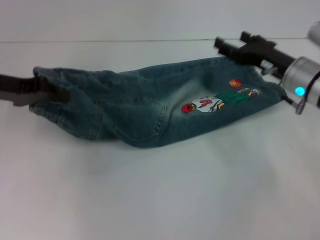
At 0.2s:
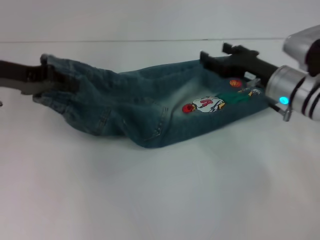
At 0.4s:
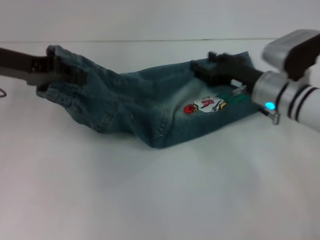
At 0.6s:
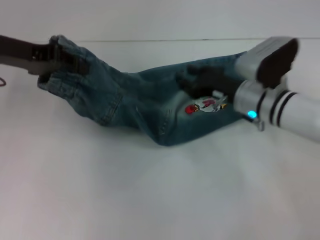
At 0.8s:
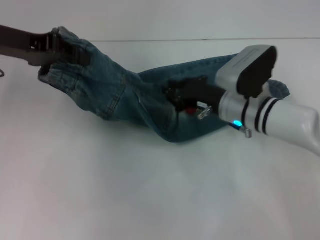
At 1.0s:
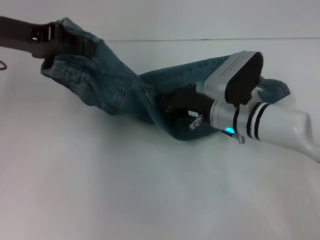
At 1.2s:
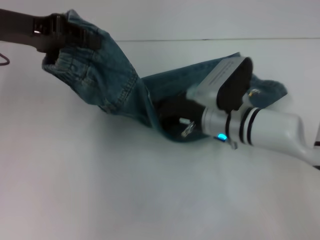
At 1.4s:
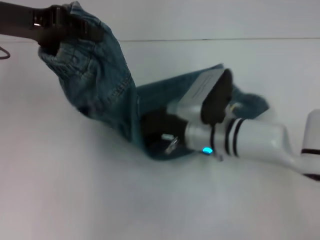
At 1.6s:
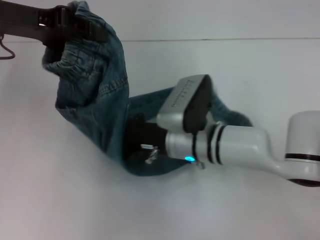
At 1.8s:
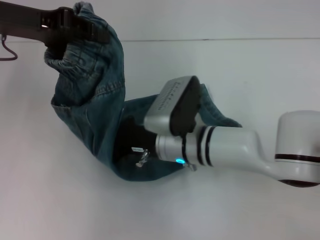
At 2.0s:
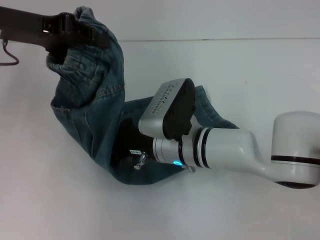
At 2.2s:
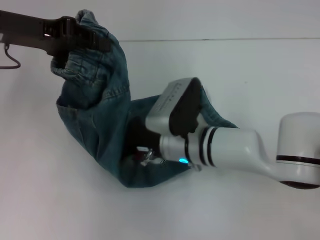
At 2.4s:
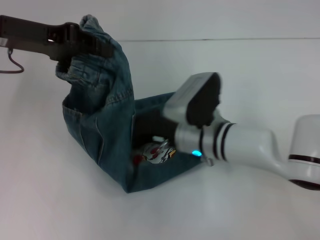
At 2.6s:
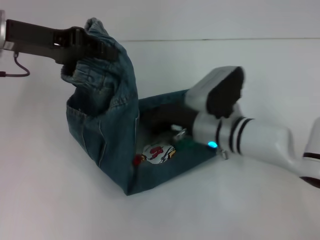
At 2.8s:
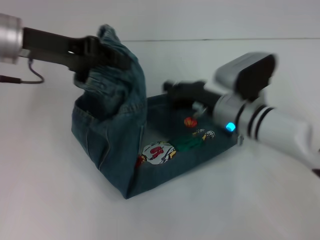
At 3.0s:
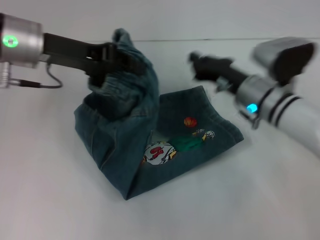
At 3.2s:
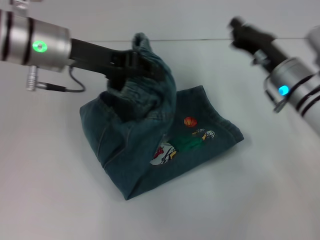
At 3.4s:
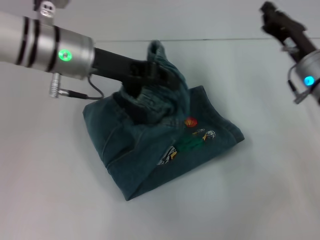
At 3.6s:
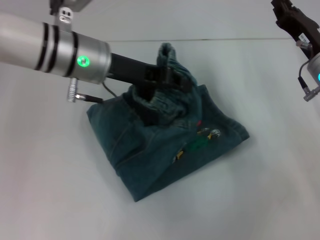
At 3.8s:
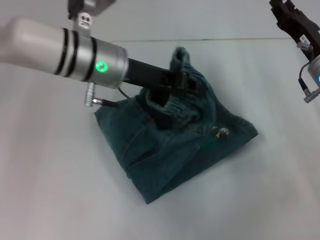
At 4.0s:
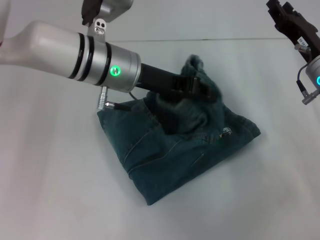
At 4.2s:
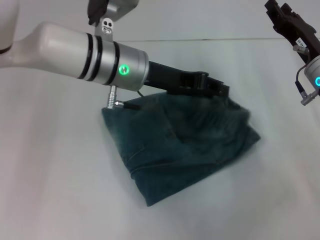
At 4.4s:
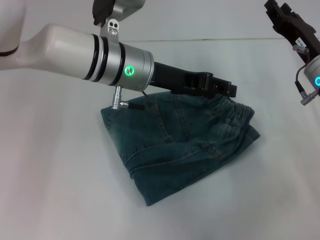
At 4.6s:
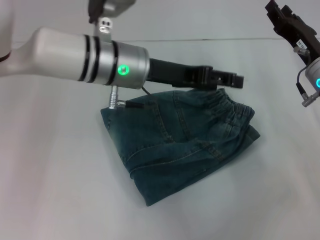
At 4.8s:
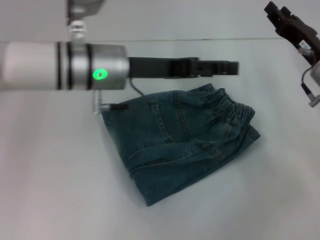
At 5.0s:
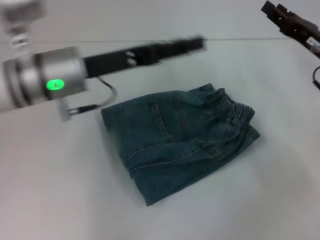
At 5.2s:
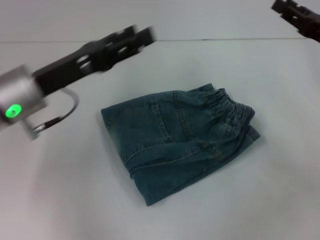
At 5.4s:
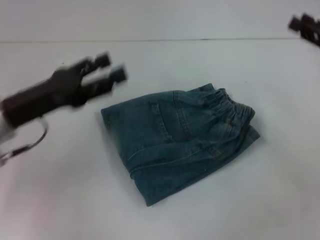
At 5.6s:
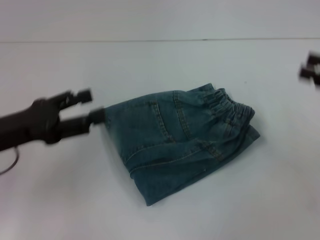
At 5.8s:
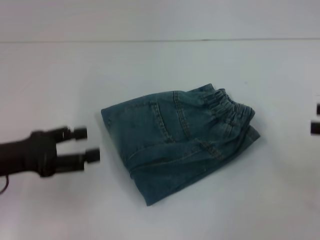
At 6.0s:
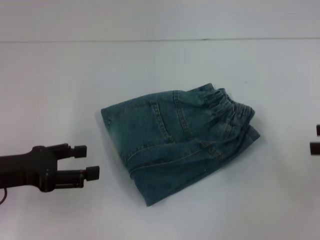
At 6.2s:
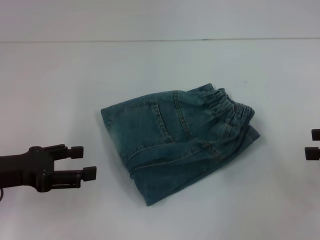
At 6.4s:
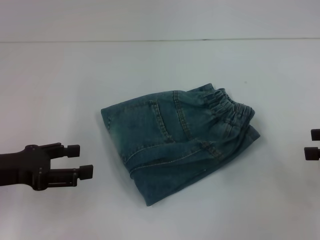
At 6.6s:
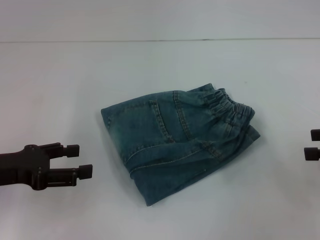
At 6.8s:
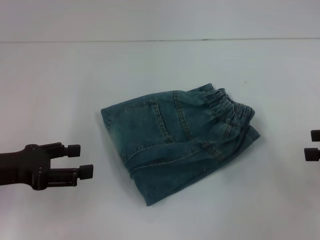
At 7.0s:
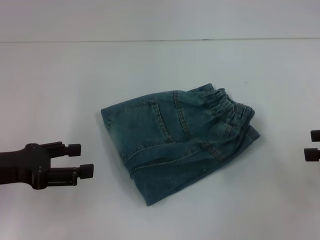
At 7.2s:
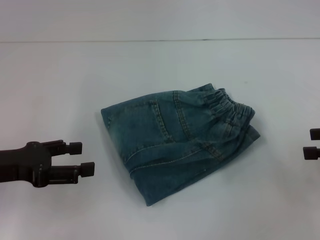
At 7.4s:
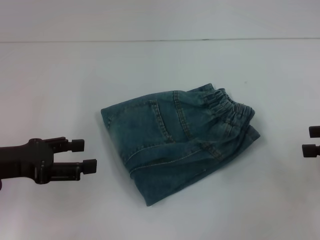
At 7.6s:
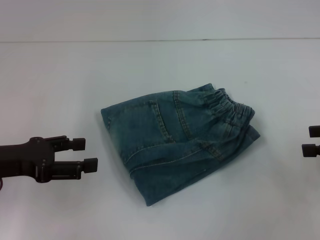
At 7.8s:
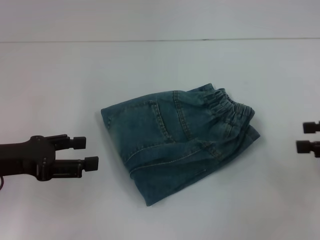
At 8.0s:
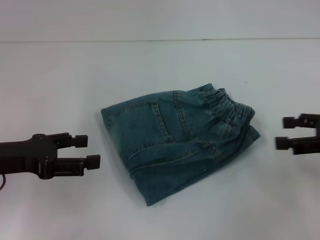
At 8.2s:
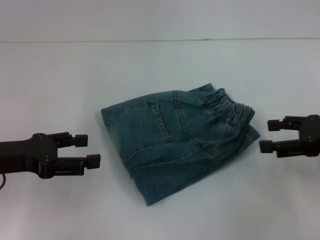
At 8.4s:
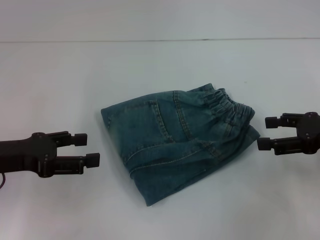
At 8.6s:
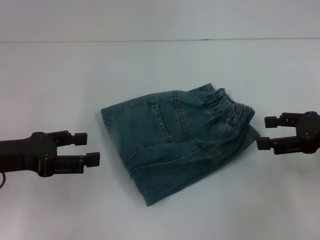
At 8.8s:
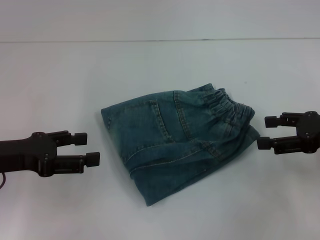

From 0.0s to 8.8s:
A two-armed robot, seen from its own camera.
Step, from 0.0s to 2.0s: Press the middle of the pants with your right hand.
Step, from 2.2s to 4.2s: Fold to the right with your left hand.
From 0.0s to 1.4s: The left gripper heads upward, covering some 10 cm. Meanwhile the right gripper goes approximately 15 cm to the left, and closes up.
From 1.4s to 3.0s: The two grippers go some 5 cm to the right.
From 3.0s to 4.4s: The right gripper goes roughly 5 cm to the right, and opens its fingers. The left gripper goes approximately 15 cm to the right, and opens up.
From 4.4s to 5.8s: The right gripper heads to the right and backward, covering about 20 cm, and opens its fingers. Meanwhile the left gripper goes roughly 25 cm to the left and backward, and opens its fingers.
From 5.8s to 7.4s: The grippers stay close to where they were, moving slightly.
From 7.4s to 8.8s: The right gripper moves to the left, approximately 5 cm.

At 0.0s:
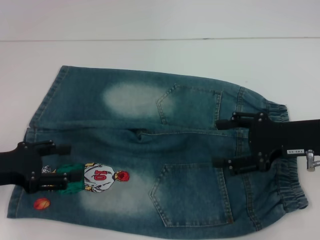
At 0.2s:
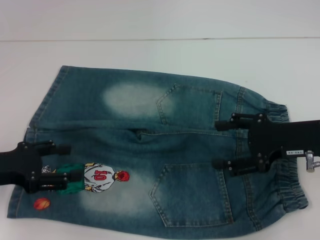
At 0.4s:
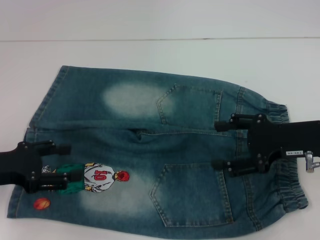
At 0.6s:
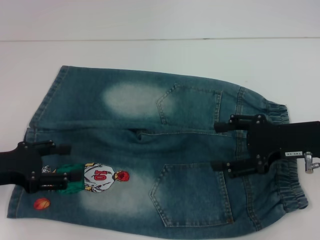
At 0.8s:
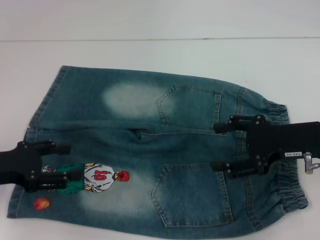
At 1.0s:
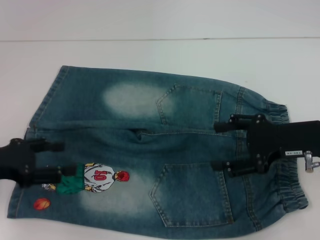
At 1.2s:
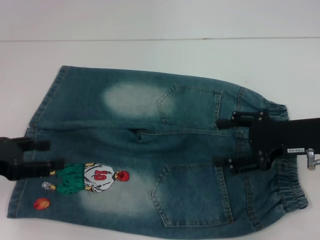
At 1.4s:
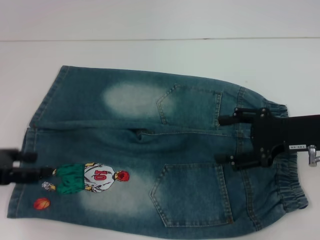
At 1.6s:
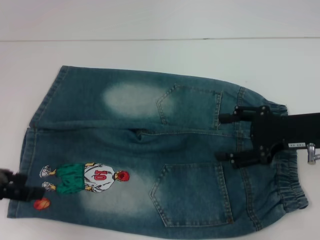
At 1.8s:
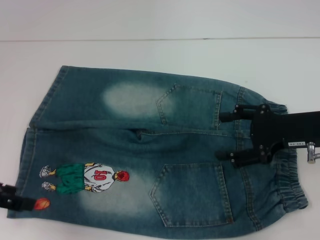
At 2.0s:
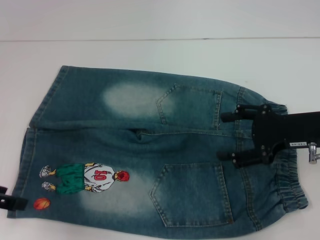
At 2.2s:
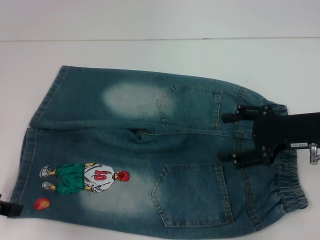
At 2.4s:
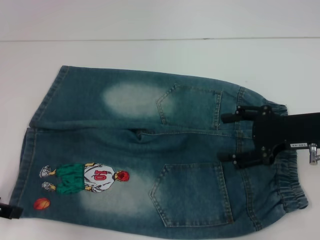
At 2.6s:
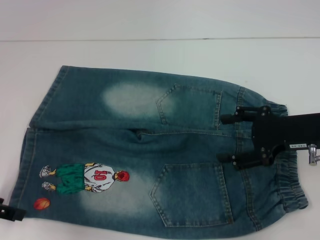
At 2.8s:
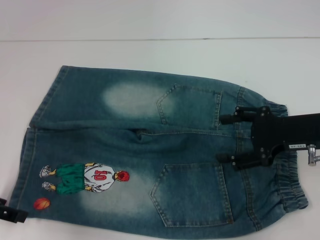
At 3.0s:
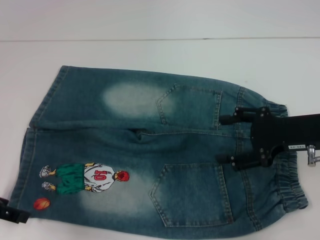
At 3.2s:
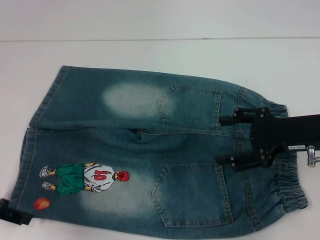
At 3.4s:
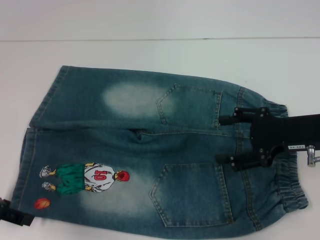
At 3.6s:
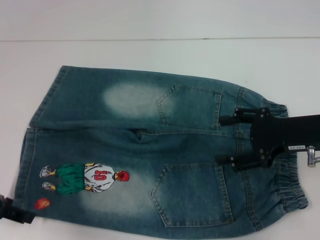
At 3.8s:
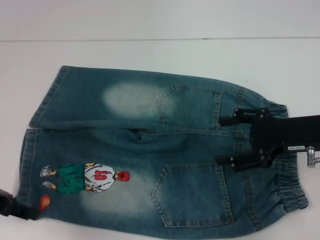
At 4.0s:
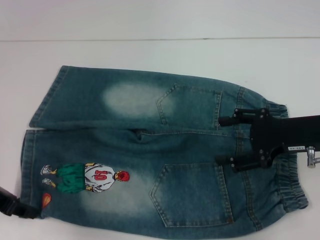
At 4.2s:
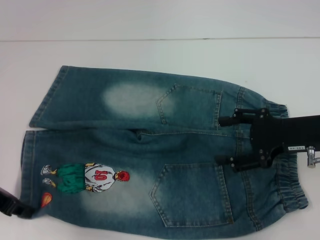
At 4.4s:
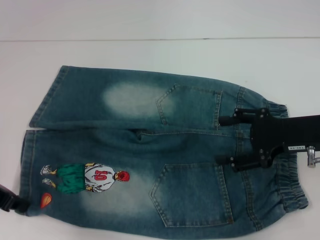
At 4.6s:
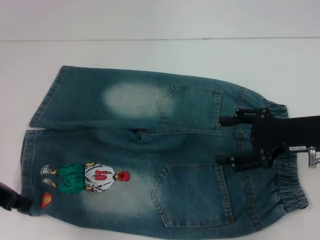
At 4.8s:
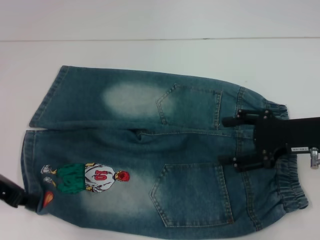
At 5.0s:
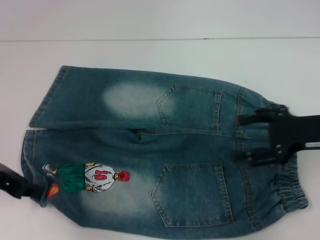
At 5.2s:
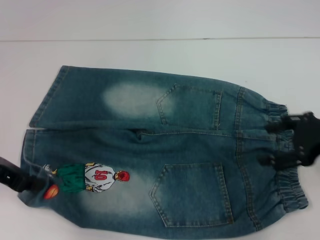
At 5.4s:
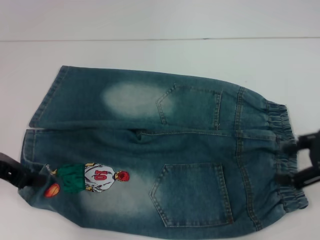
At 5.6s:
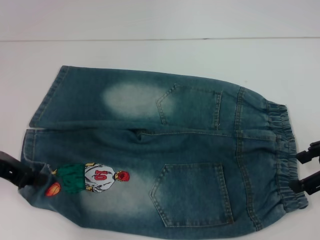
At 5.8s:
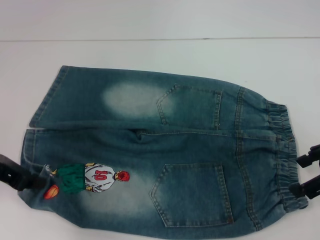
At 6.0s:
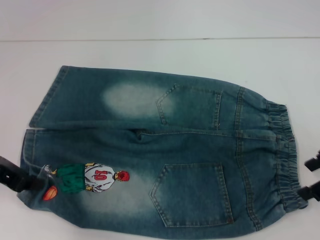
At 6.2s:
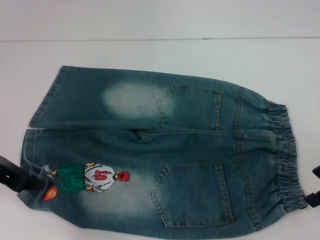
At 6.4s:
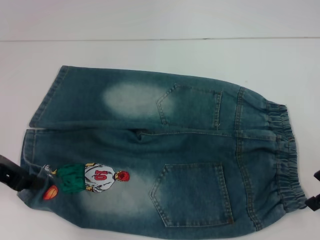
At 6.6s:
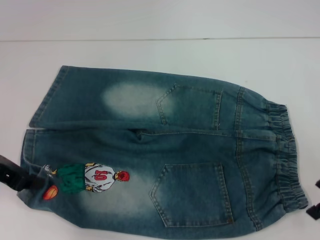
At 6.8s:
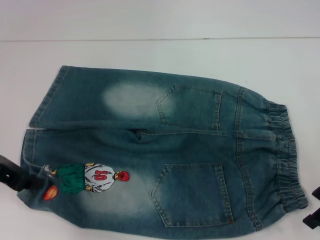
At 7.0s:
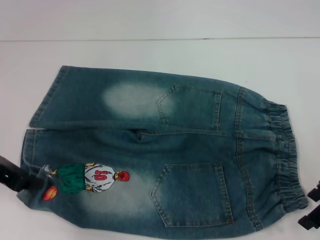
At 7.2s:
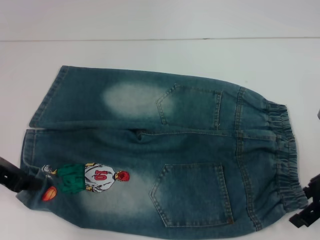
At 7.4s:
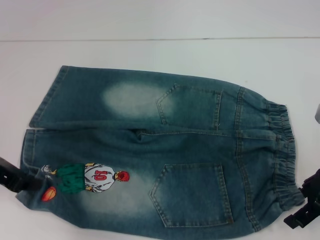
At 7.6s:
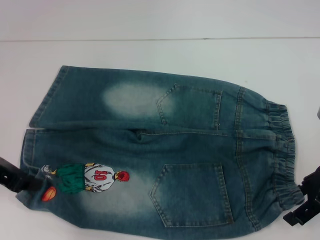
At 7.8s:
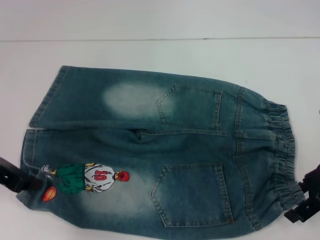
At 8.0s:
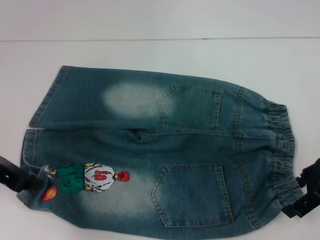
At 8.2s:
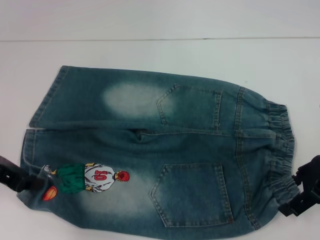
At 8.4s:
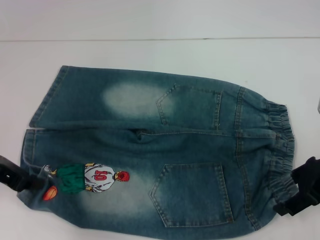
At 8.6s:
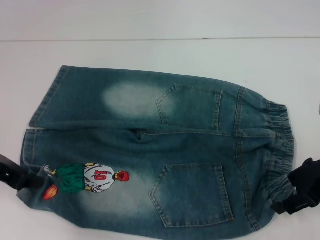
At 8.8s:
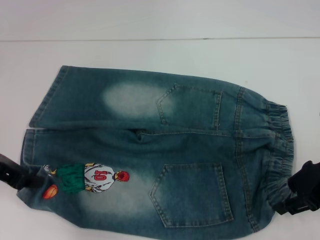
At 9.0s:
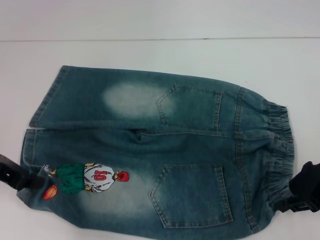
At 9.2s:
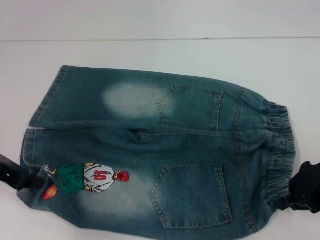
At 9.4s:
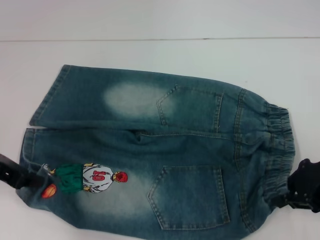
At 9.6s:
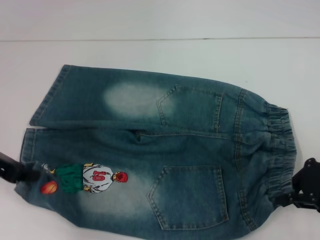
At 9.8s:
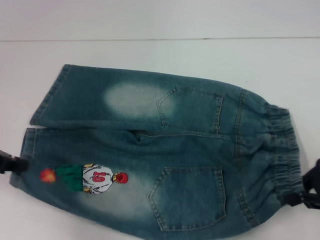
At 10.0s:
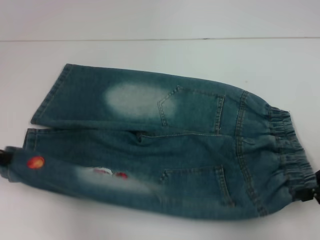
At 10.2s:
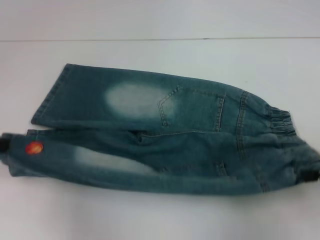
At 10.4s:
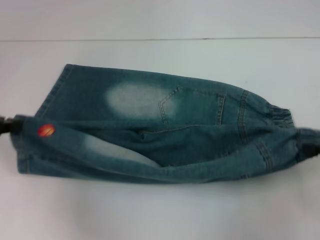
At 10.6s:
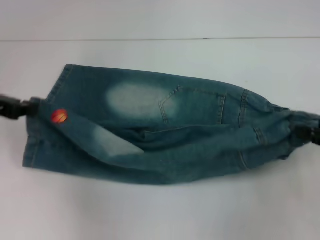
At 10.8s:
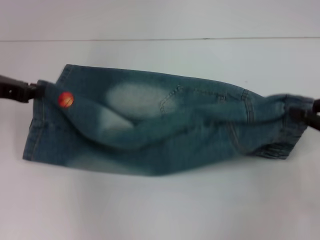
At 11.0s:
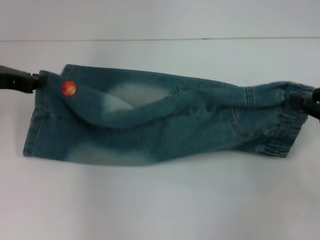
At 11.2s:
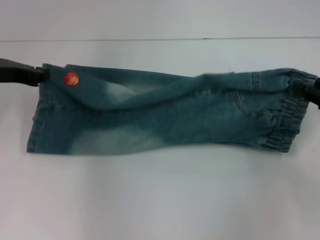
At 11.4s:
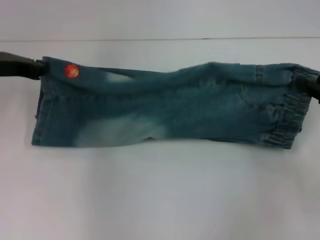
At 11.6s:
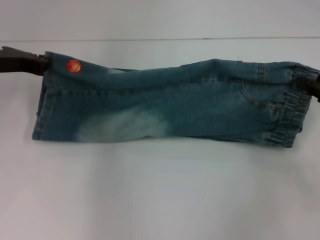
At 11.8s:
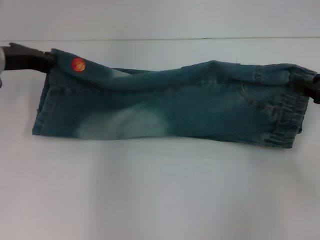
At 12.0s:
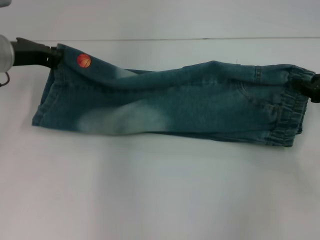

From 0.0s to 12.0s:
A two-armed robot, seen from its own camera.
Step, from 0.0s to 5.4s: Grab the lower left pant leg with your left hand.
Step, from 5.6s to 9.4s: Hold the lower right waistband with your right hand.
From 0.0s to 1.6s: The left gripper ends up about 5 cm from where it was.
From 1.6s to 3.0s: The grippers stay close to where they were, moving slightly.
From 3.0s to 4.4s: The left gripper closes up.
From 4.4s to 6.0s: The right gripper goes some 5 cm upward.
From 6.0s to 7.6s: There are only small adjustments of the grippers.
From 7.6s to 9.0s: The right gripper closes its fingers.
From 9.0s to 10.4s: The right gripper travels to the right by roughly 10 cm, and closes. Meanwhile the left gripper changes place by approximately 5 cm.
From 10.4s to 12.0s: The right gripper goes approximately 10 cm forward. Meanwhile the left gripper shifts about 15 cm forward and to the right.

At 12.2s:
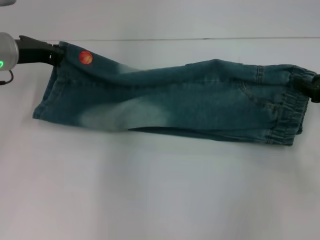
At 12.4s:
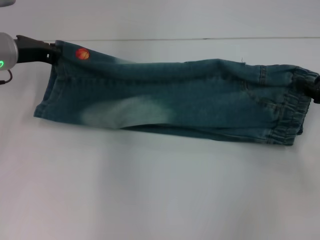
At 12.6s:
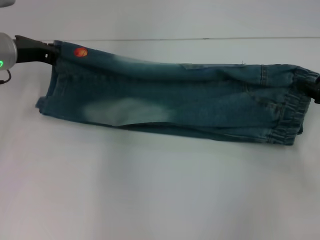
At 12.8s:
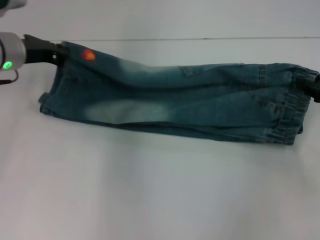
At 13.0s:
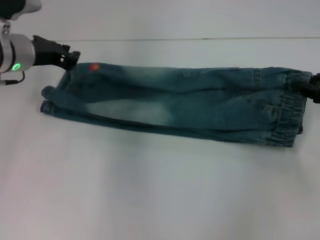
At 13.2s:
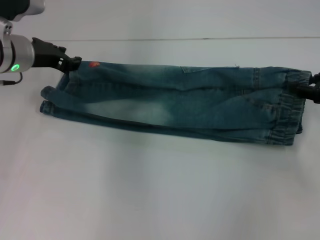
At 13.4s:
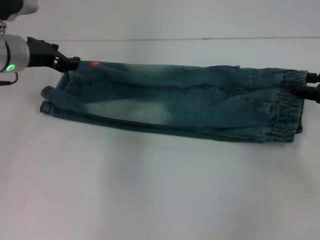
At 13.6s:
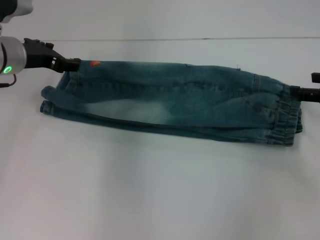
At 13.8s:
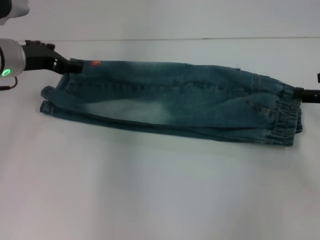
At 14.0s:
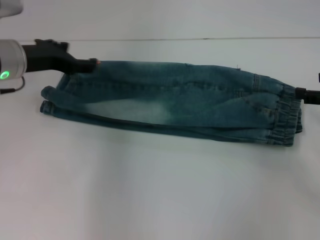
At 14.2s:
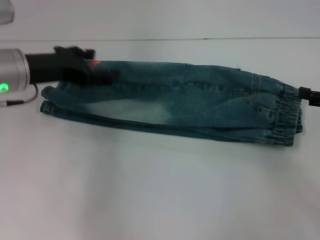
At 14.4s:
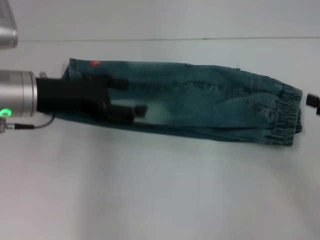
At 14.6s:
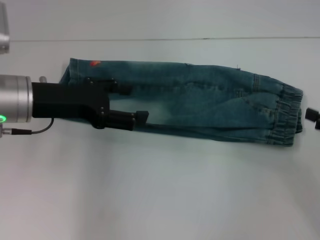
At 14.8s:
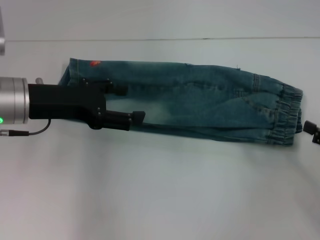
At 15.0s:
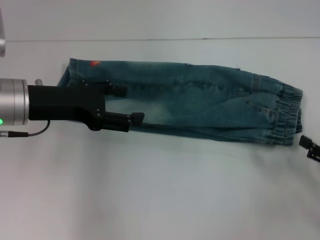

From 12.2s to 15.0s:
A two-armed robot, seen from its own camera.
Step, from 13.2s to 13.4s: Fold upward with your right hand.
From 12.2s to 13.6s: The right gripper opens; the left gripper opens up.
From 13.6s to 15.0s: The right gripper moves backward and downward, about 15 cm. Meanwhile the left gripper travels backward by about 10 cm, and opens up.
